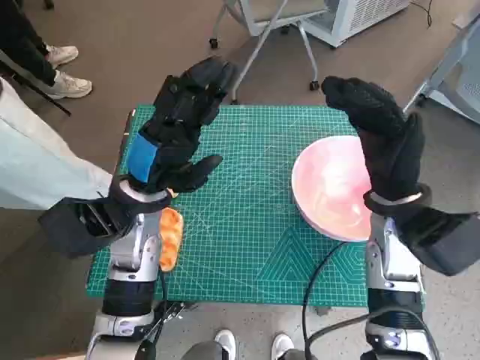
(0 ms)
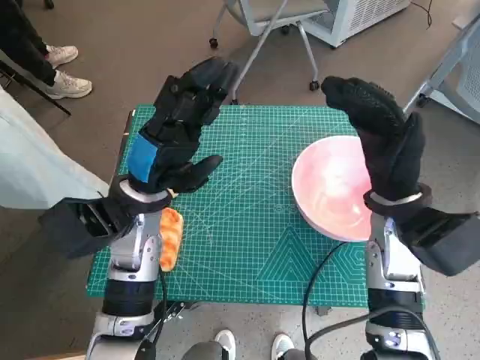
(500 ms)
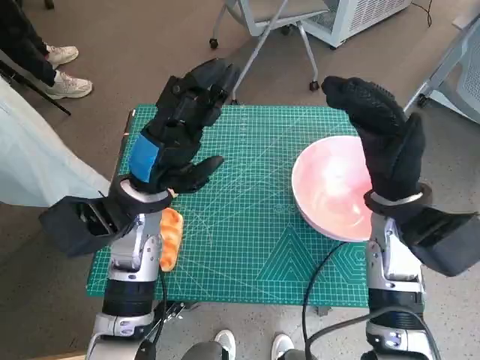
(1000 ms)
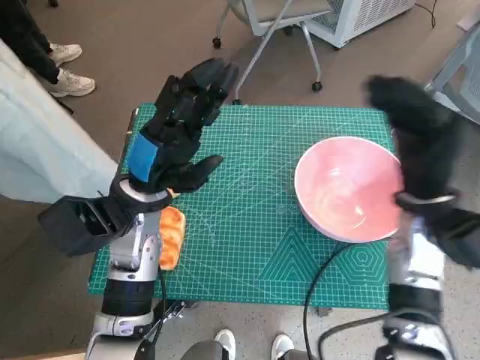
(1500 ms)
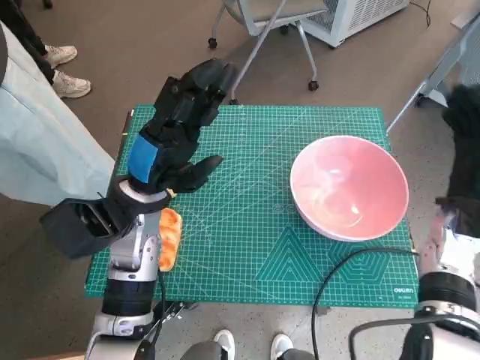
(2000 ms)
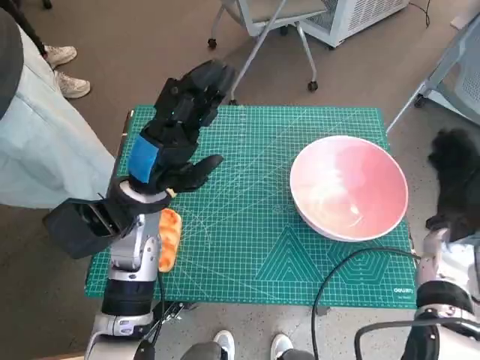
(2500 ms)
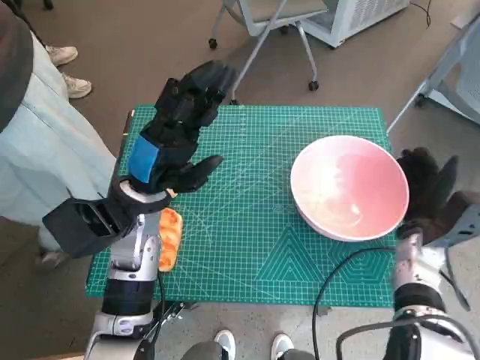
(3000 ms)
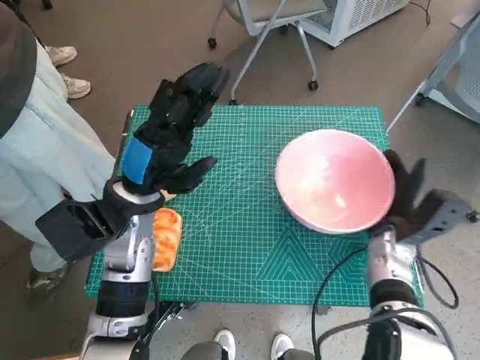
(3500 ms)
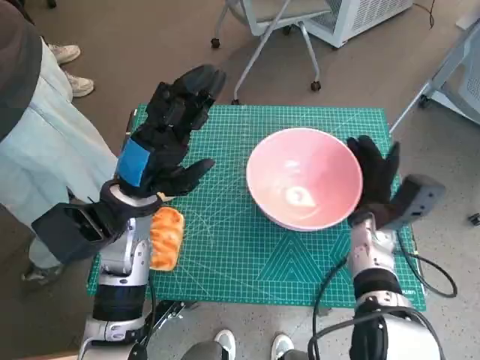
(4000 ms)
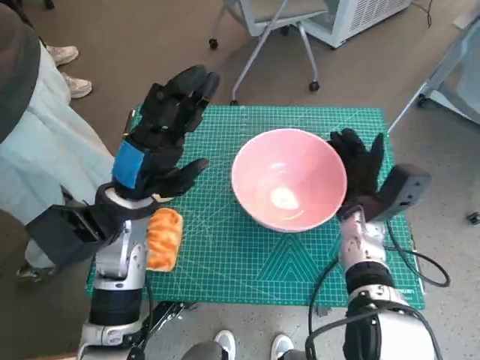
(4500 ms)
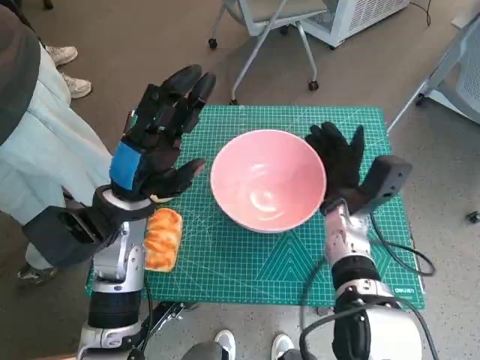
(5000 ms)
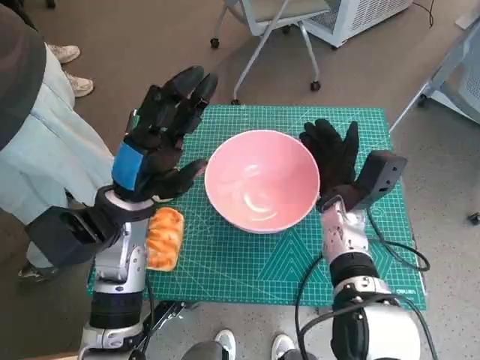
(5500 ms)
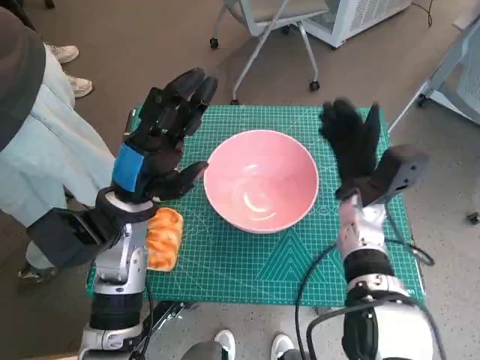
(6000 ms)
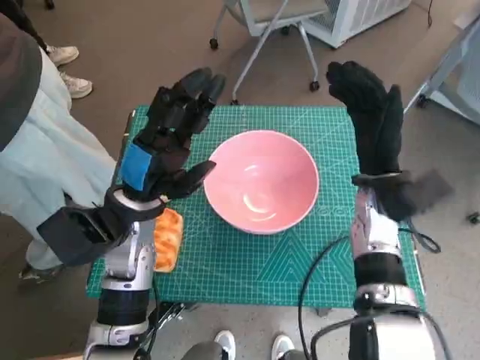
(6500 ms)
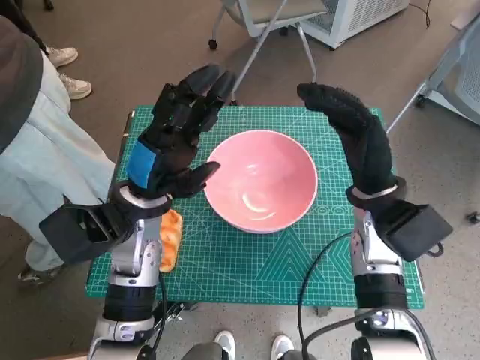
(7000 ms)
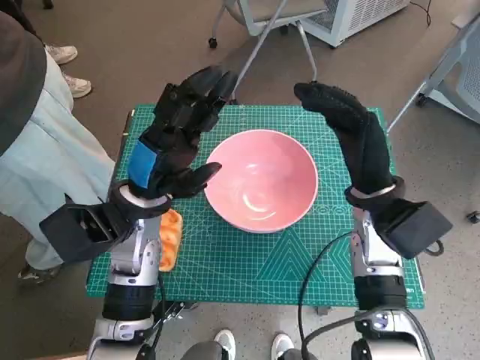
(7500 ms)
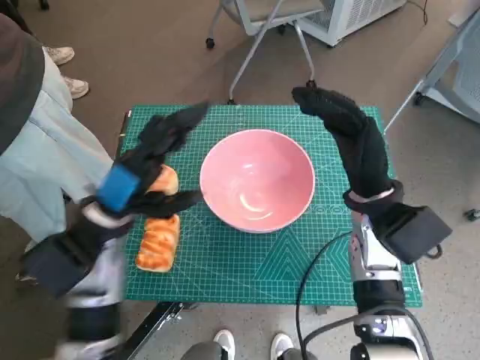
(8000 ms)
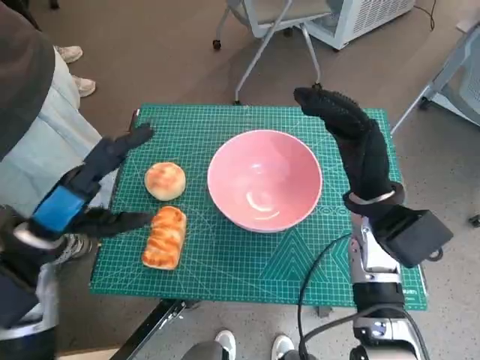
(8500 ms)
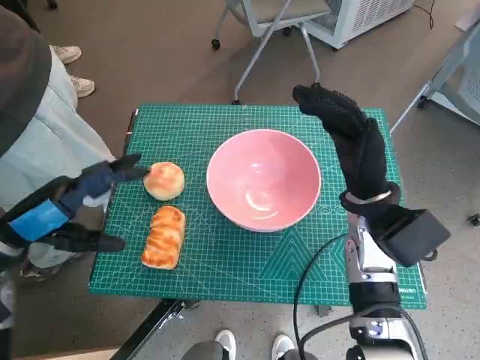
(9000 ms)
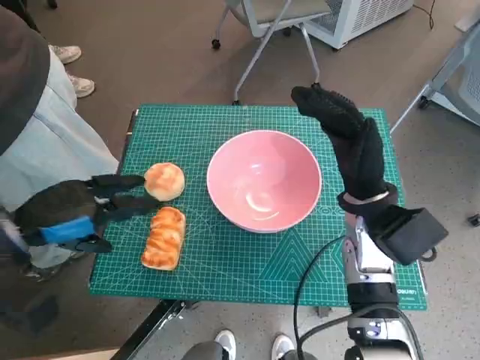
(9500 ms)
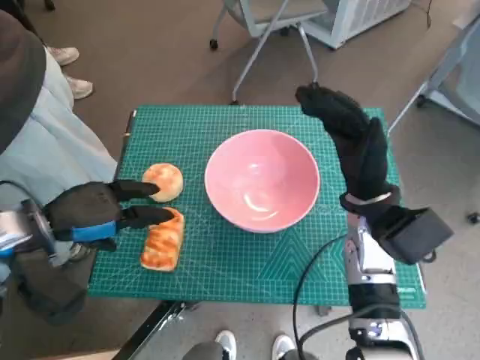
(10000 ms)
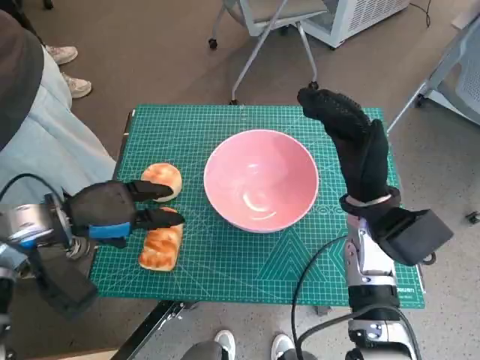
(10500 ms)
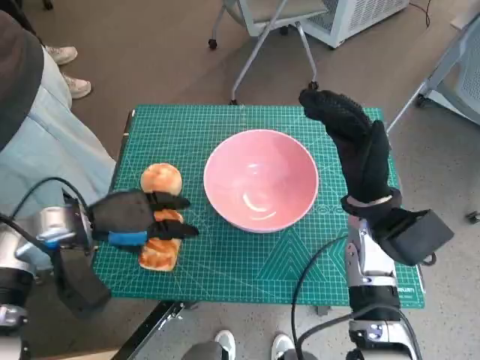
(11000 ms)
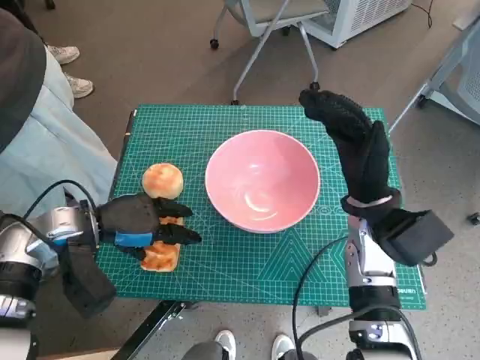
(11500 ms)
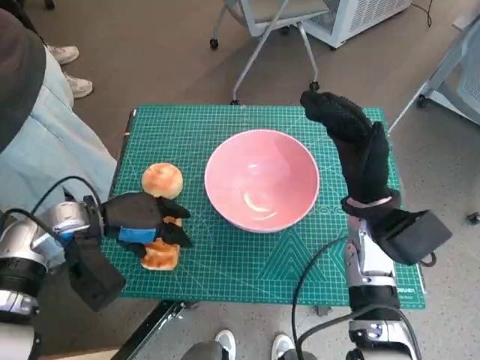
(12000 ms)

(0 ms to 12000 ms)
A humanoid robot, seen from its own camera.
Task of the whole recording: Push the bowl into the center of the table and put the bread into the bowl.
Step, 0 ms - 7000 ms: Move the pink bowl to the center of table with right hand.
2000 ms - 4000 ms: The right hand moves to the left and downward, about 10 cm.
4000 ms - 6000 ms: The right hand changes place by roughly 5 cm.
6000 ms - 8000 ms: The right hand moves upward, roughly 5 cm.
8000 ms - 10000 ms: The left hand shifts approximately 10 cm to the left.
10000 ms - 12000 ms: The left hand changes place by some 5 cm.

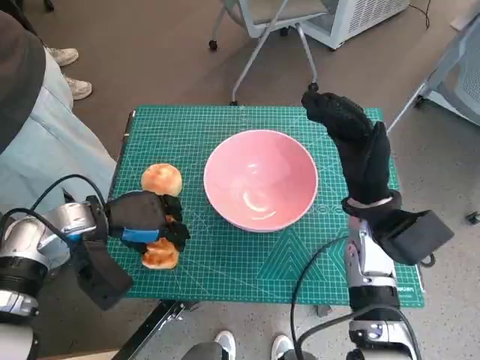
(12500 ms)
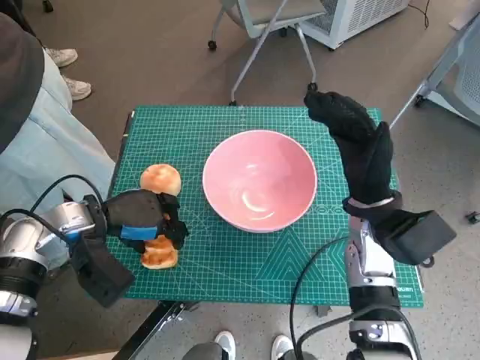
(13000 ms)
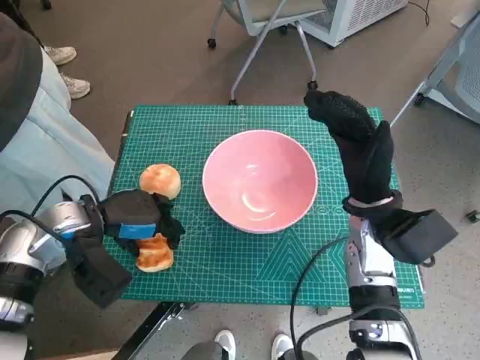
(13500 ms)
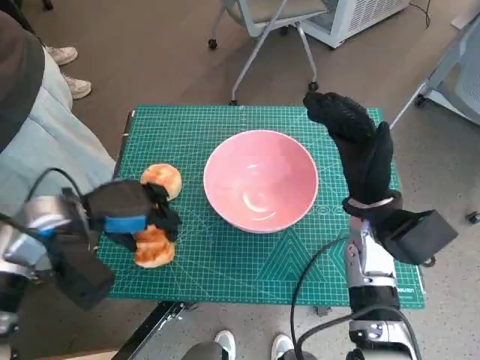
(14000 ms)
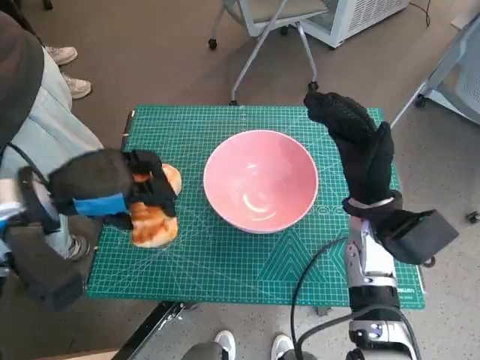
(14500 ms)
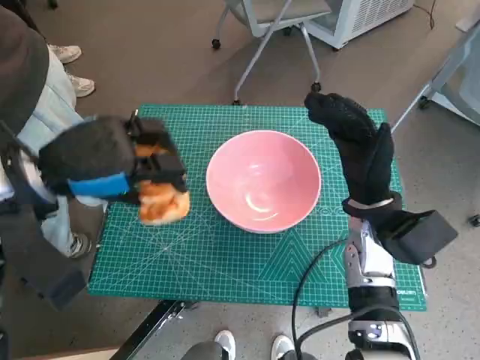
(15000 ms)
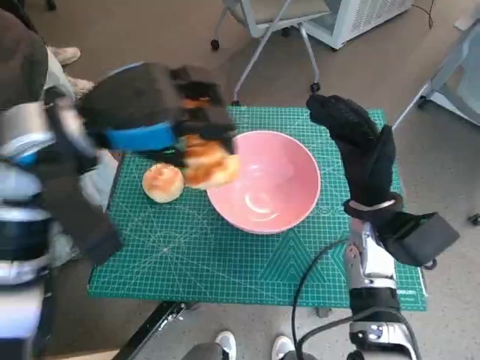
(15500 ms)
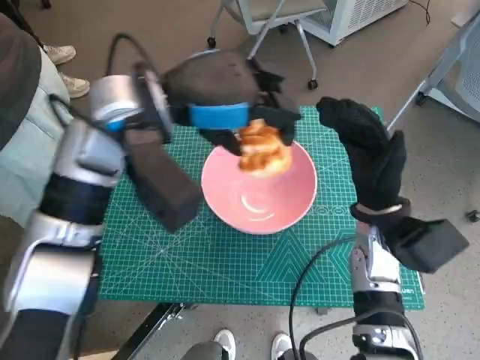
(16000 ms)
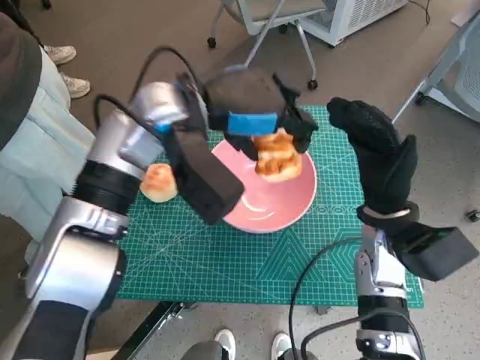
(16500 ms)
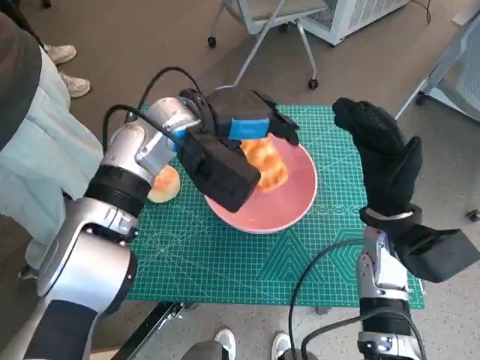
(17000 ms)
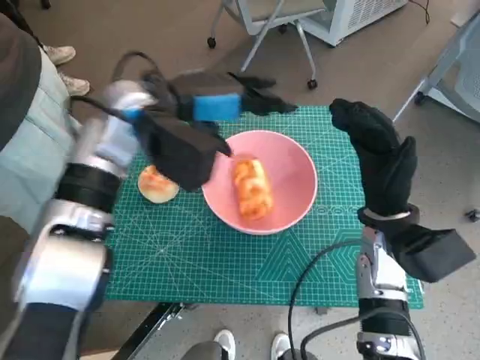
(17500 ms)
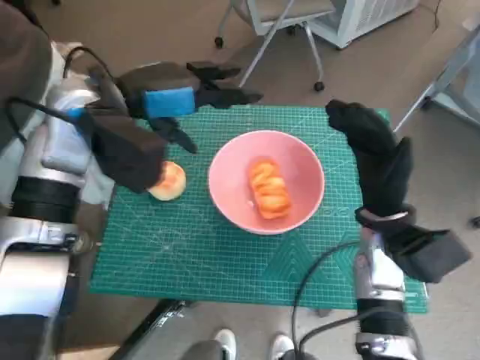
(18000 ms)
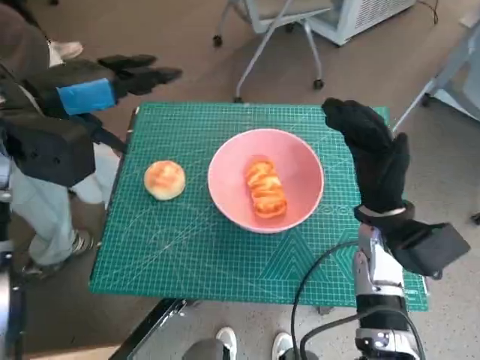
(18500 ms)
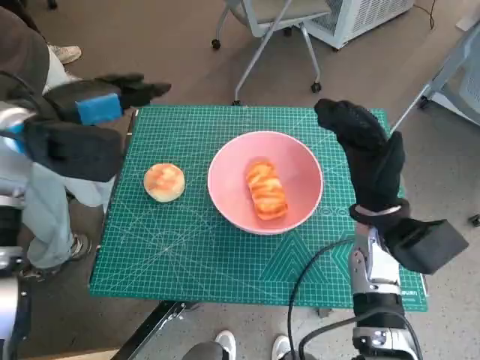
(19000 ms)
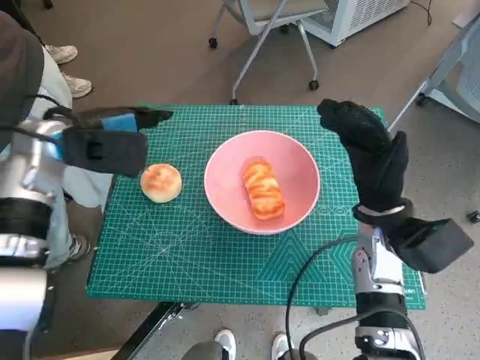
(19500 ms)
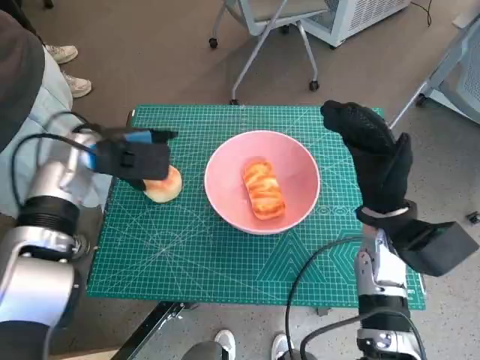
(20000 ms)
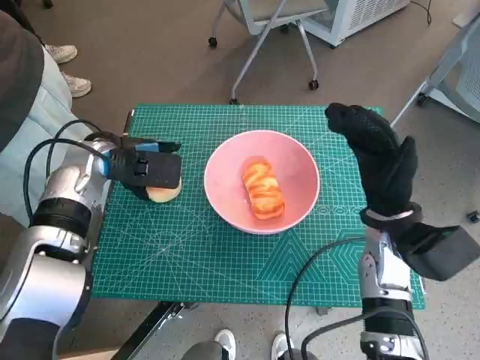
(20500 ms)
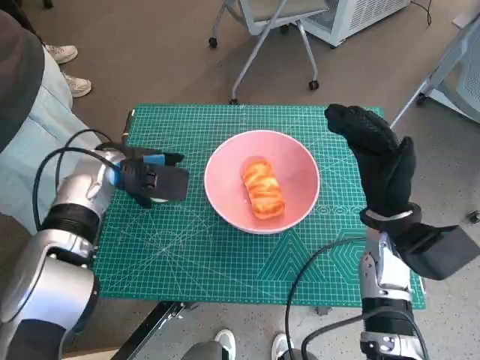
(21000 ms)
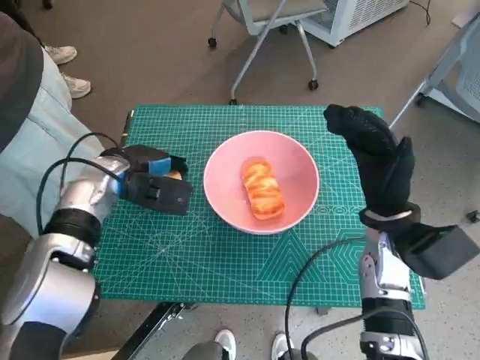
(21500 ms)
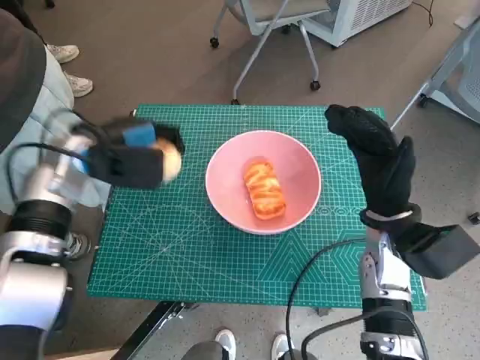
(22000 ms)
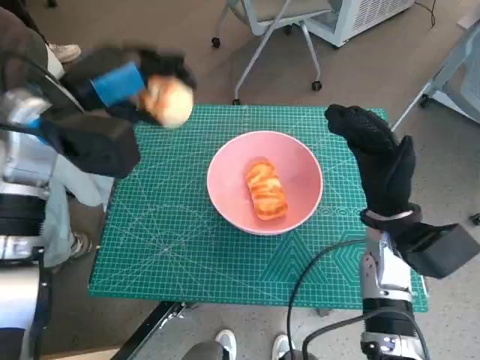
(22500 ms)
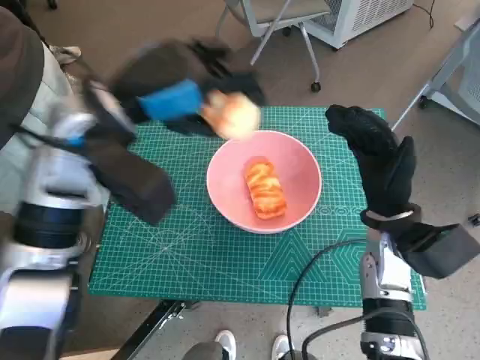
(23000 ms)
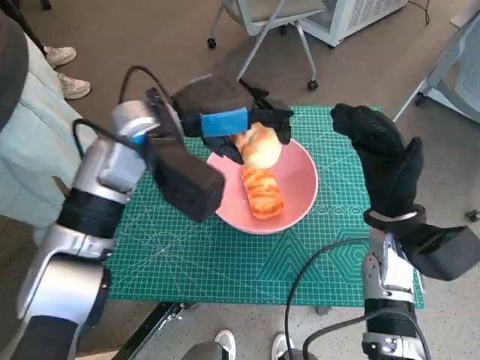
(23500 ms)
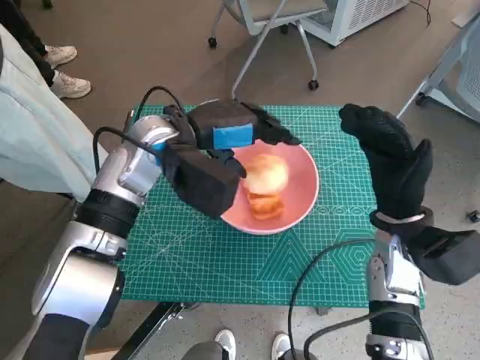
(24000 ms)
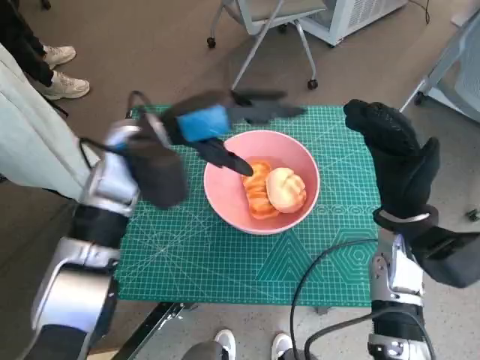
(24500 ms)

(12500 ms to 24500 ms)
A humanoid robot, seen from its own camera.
Task of the whole recording: Push the bowl into the center of the table and put the bread into the bowl.
Step, 13000 ms - 17000 ms: Place the long bread in pink bowl with left hand.
Step, 17500 ms - 21000 ms: Grasp the round bread with left hand.
Step, 21500 ms - 24000 ms: Place the round bread in pink bowl with left hand.
12500 ms - 14500 ms: The left hand heads upward, covering some 10 cm.
14500 ms - 16500 ms: The left hand heads to the right and forward, covering about 20 cm.
16500 ms - 18500 ms: The left hand heads to the left, covering some 15 cm.
18500 ms - 20500 ms: The left hand moves downward, some 15 cm.
20500 ms - 22500 ms: The left hand is displaced upward by about 10 cm.
22500 ms - 24500 ms: The left hand is displaced to the right by approximately 10 cm.

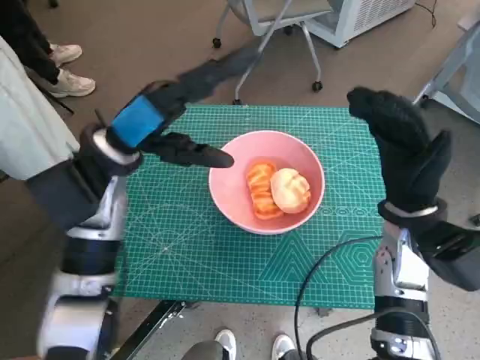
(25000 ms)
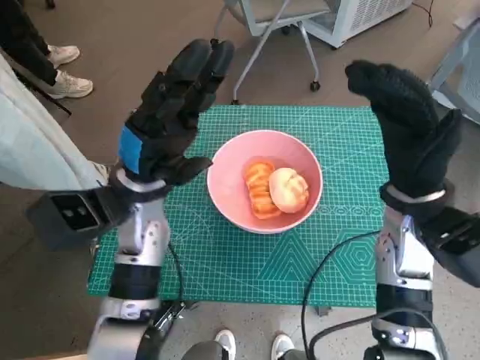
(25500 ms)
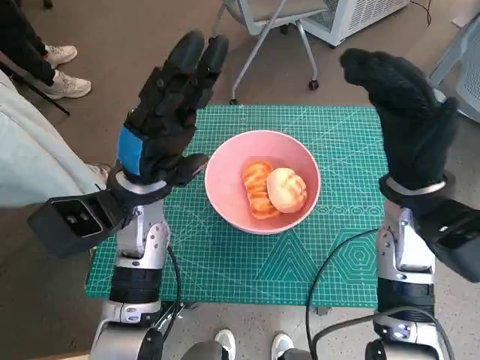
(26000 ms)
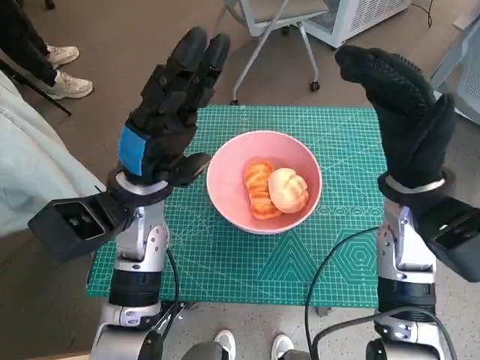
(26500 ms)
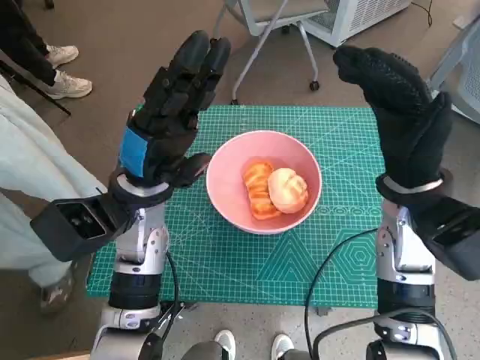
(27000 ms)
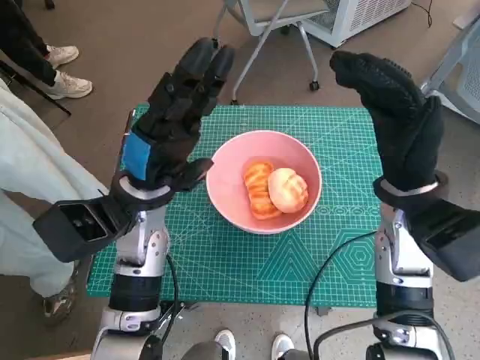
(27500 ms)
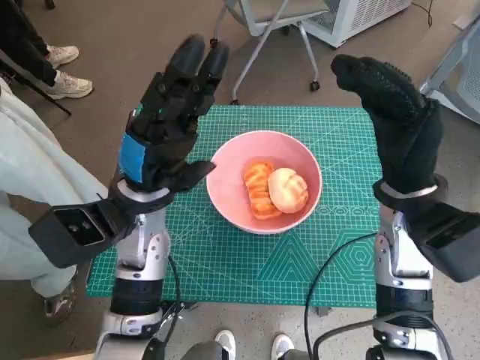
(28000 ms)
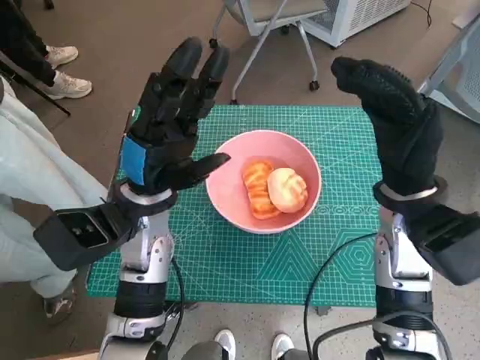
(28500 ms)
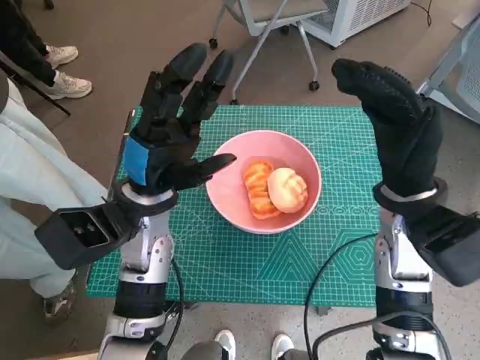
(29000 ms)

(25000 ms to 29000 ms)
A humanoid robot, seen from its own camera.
Task of the whole recording: Push the bowl into the center of the table and put the bread into the bowl.
25000 ms - 27000 ms: The left hand moves downward, some 5 cm, while the right hand shifts by roughly 5 cm.
27000 ms - 29000 ms: Neither hand changes place.
